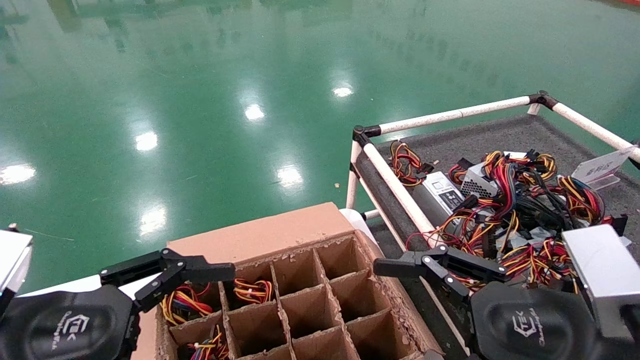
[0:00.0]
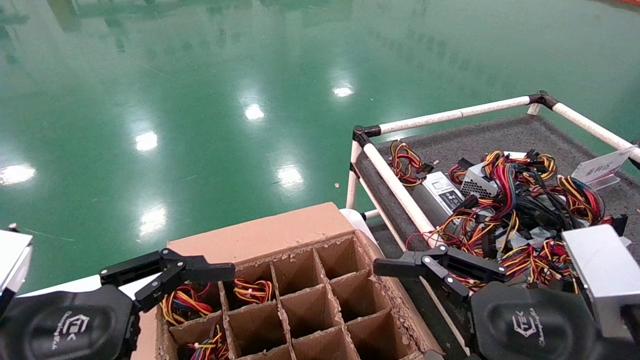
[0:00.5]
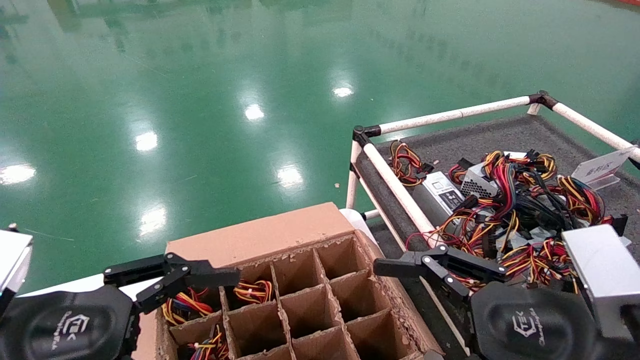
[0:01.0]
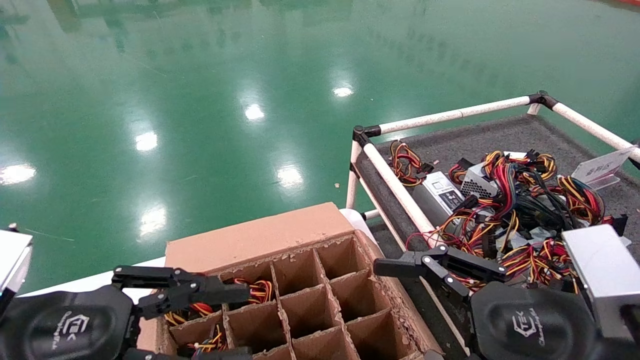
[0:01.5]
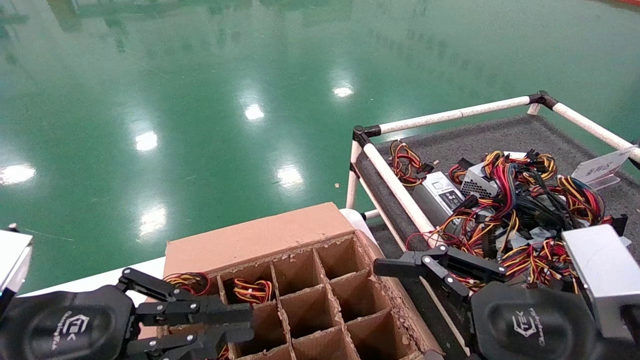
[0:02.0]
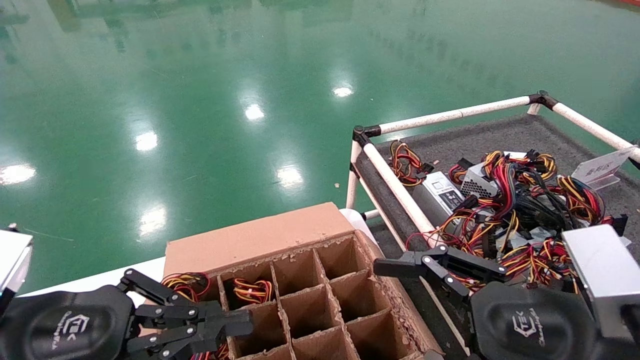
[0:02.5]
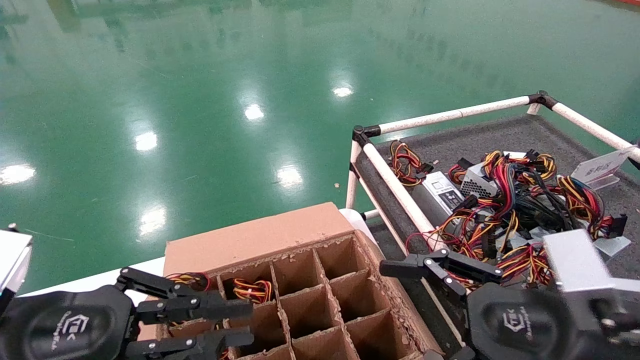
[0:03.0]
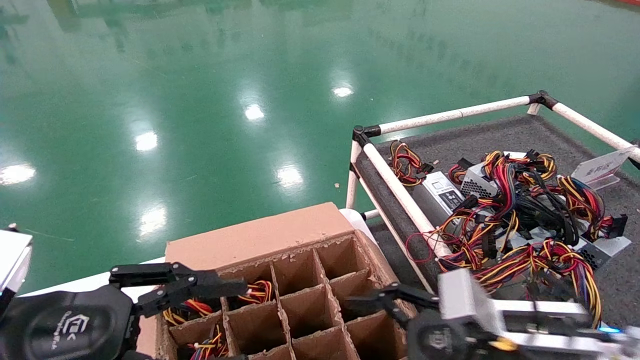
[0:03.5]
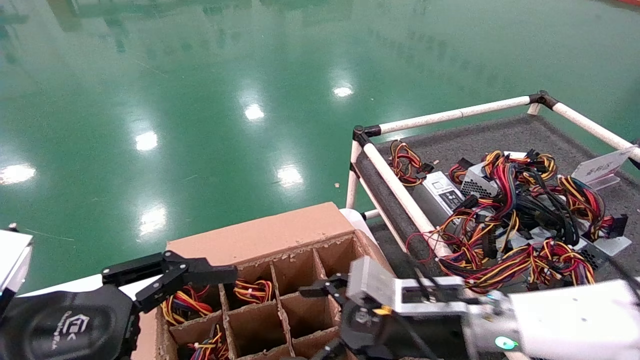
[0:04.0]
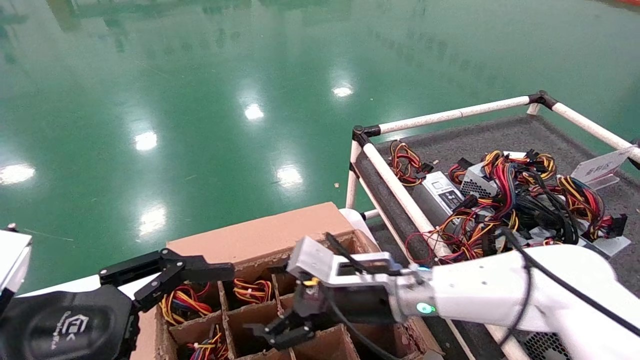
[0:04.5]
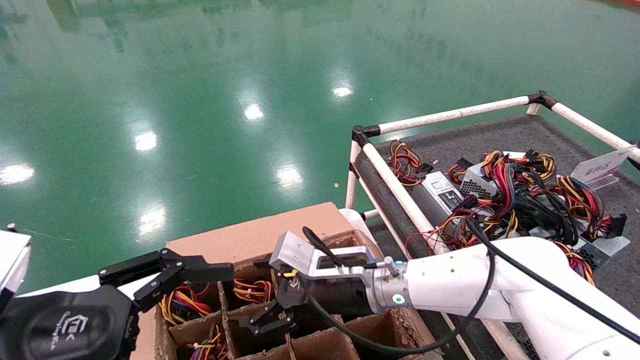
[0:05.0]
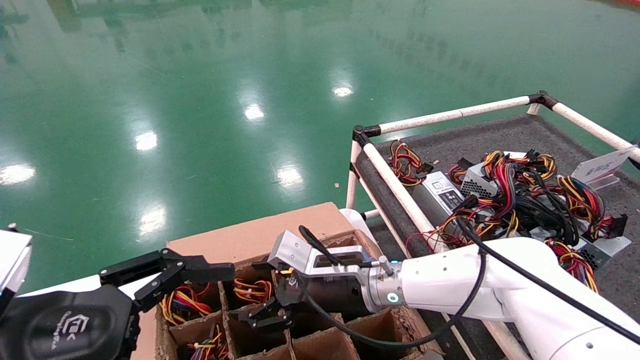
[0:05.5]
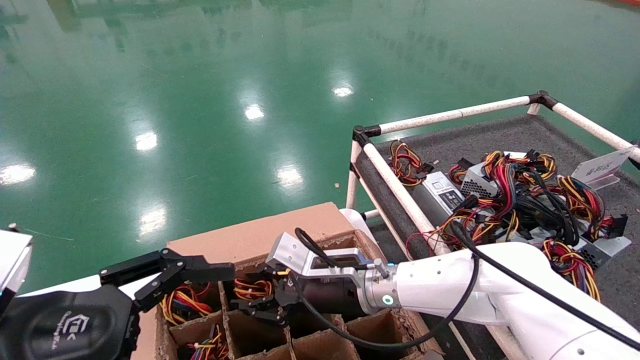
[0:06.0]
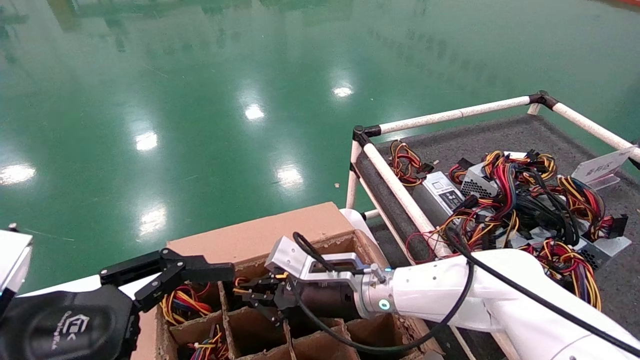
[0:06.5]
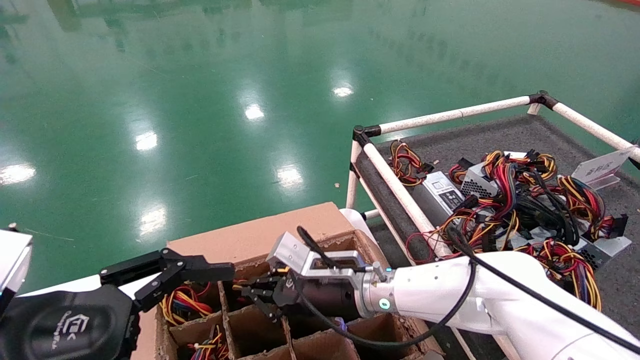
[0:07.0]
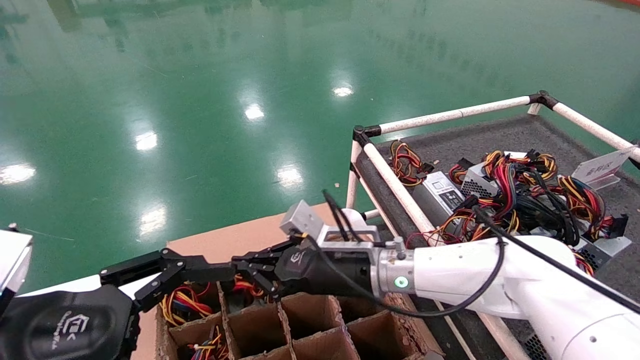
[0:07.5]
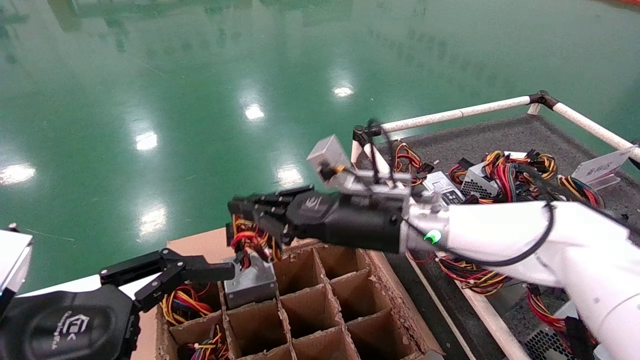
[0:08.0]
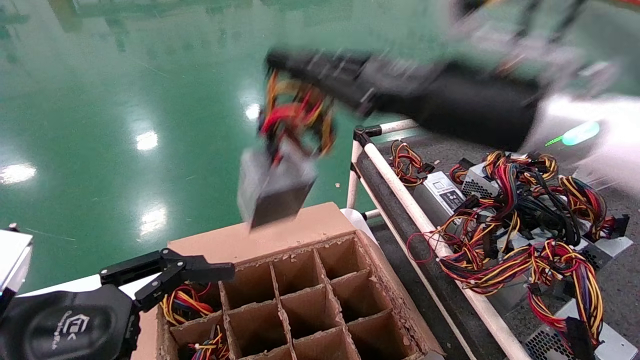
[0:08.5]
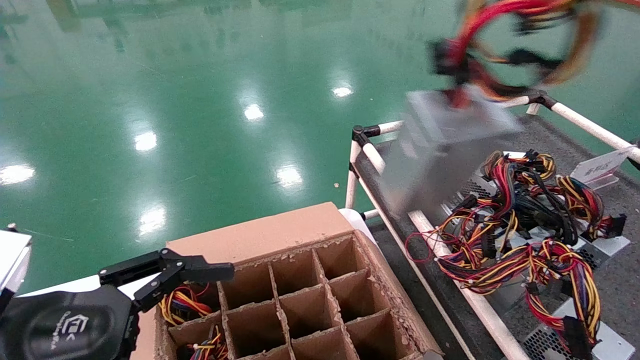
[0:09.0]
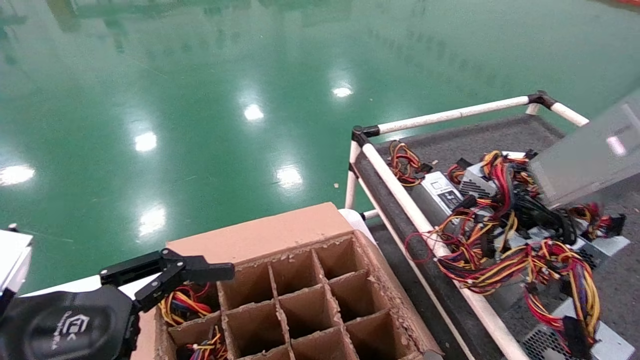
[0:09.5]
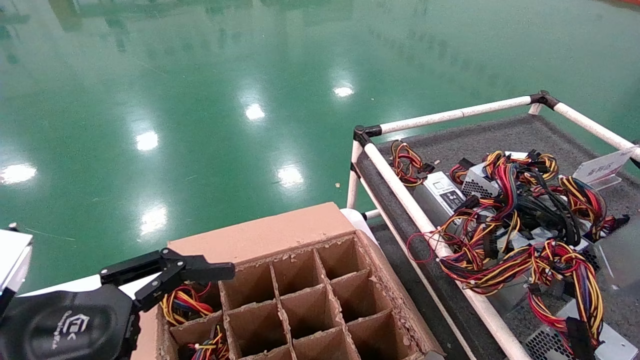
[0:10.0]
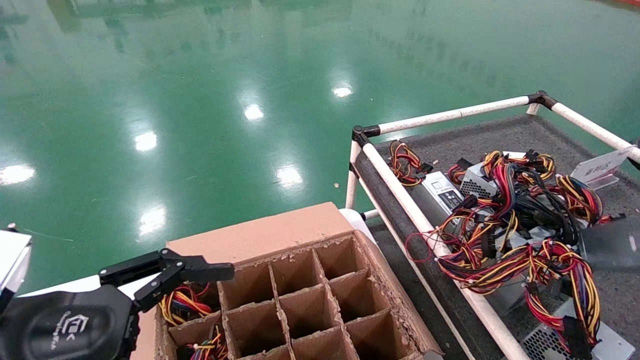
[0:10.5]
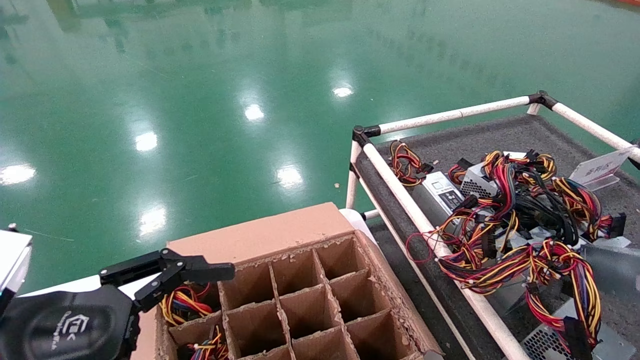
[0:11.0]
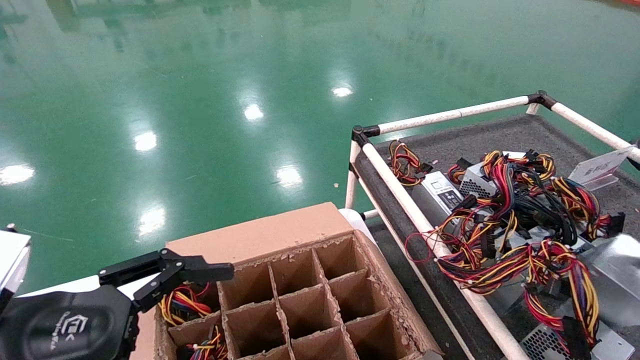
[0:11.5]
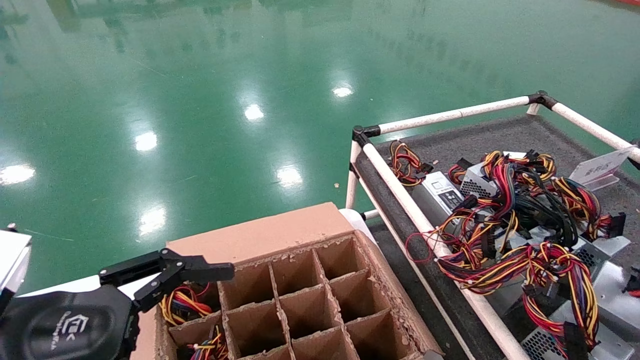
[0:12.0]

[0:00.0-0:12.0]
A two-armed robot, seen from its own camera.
Step, 0:03.5 to 0:06.5: Grab and lift the power supply from the large box.
0:00.0 to 0:02.0: The left gripper closes its fingers.
0:02.0 to 0:04.0: The right gripper heads forward, to the left and downward, covering about 20 cm, while the left gripper opens.
0:04.0 to 0:06.0: The right gripper goes roughly 15 cm to the left and forward, and closes up.
0:06.0 to 0:08.0: The right gripper moves upward, approximately 10 cm, and closes up.
0:08.0 to 0:10.0: The right gripper moves to the right and backward, about 50 cm.
0:10.0 to 0:12.0: The right gripper goes roughly 15 cm downward and forward.

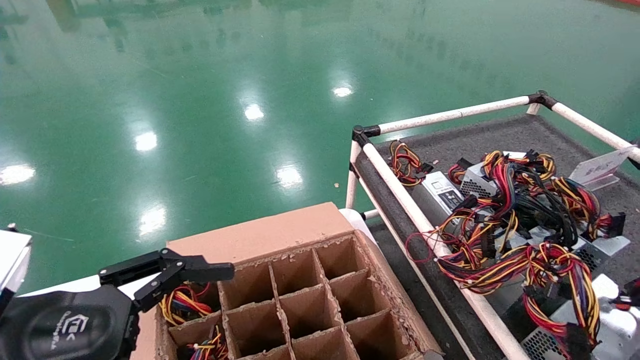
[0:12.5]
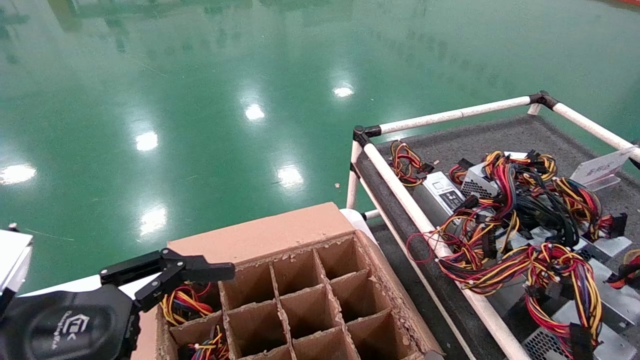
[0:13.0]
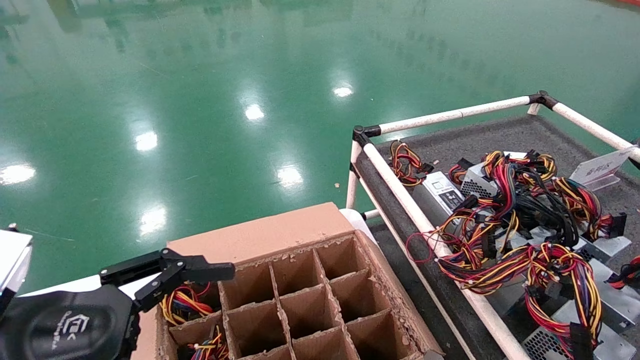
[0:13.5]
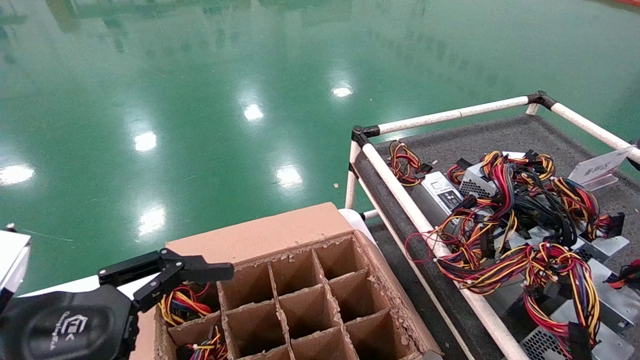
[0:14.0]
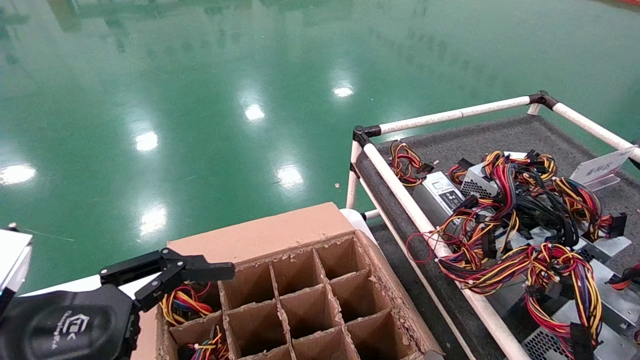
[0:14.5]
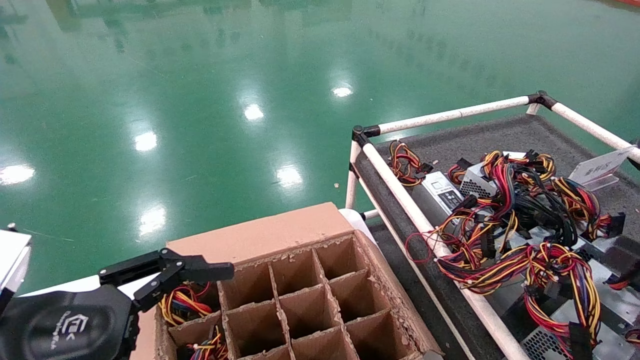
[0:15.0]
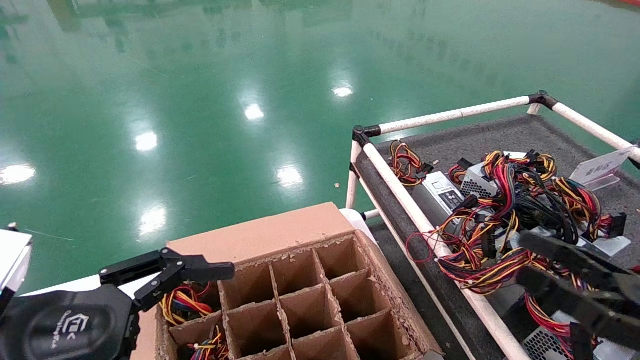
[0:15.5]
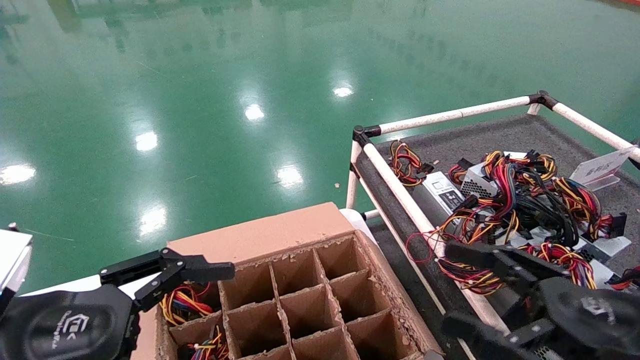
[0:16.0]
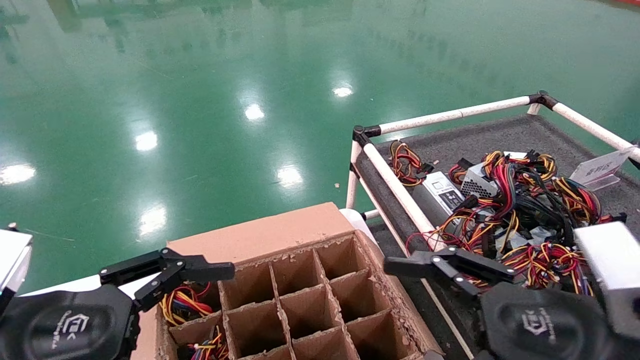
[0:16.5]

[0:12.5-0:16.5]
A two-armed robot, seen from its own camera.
Step, 0:12.5 to 0:14.5: Place the power supply on the operating table.
0:12.5 to 0:14.5: The right gripper opens its fingers.
0:14.5 to 0:16.5: The right gripper heads to the left, covering approximately 25 cm.
